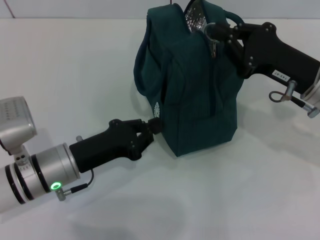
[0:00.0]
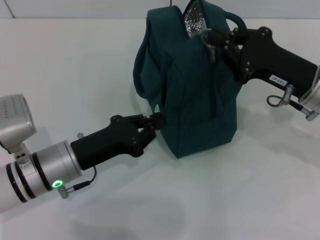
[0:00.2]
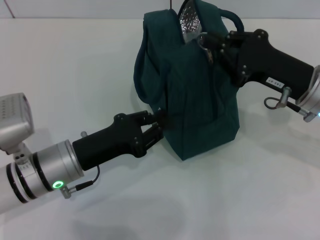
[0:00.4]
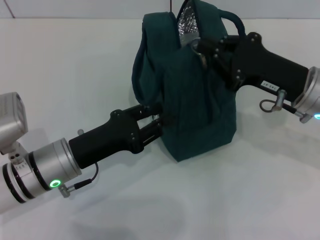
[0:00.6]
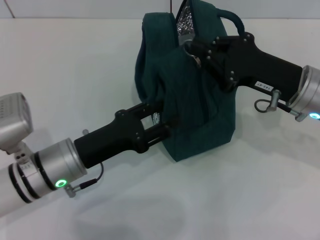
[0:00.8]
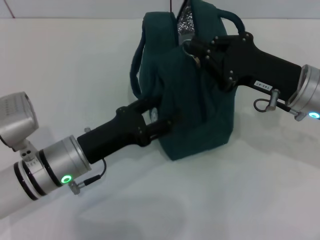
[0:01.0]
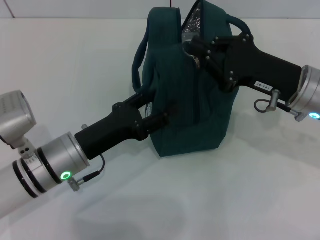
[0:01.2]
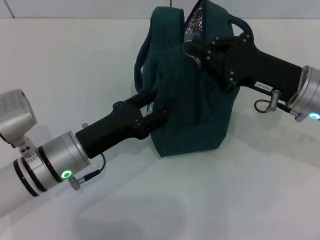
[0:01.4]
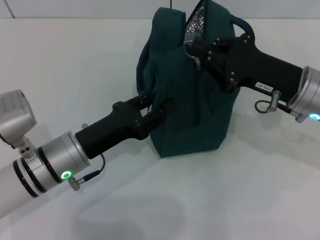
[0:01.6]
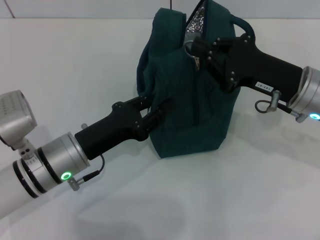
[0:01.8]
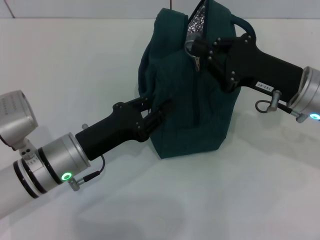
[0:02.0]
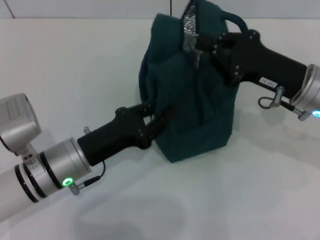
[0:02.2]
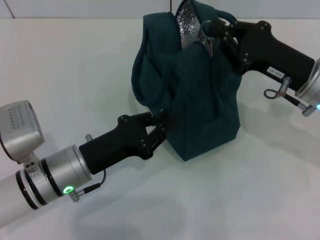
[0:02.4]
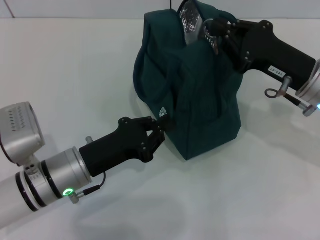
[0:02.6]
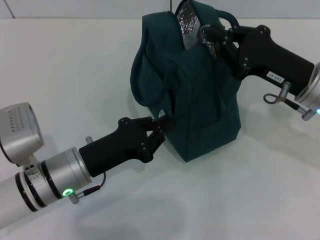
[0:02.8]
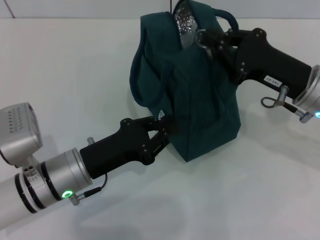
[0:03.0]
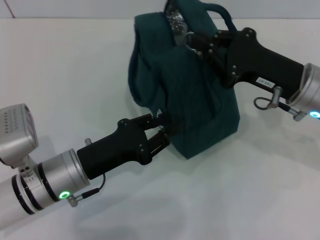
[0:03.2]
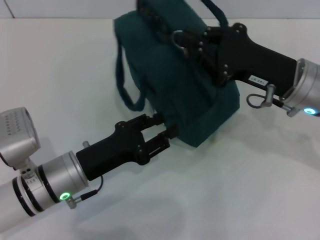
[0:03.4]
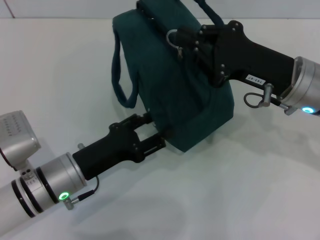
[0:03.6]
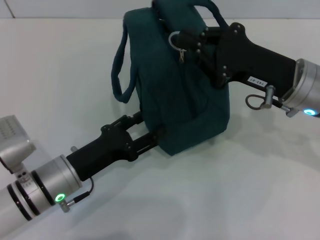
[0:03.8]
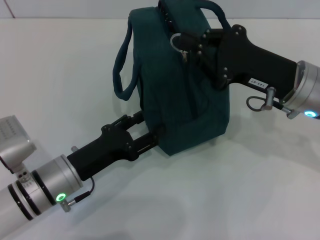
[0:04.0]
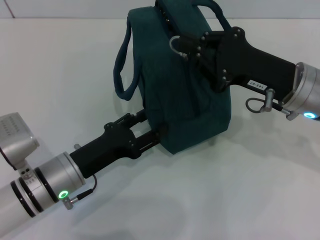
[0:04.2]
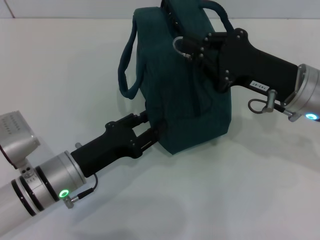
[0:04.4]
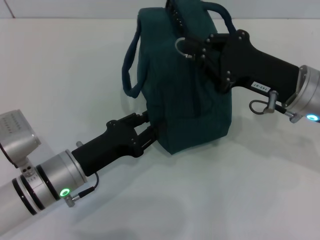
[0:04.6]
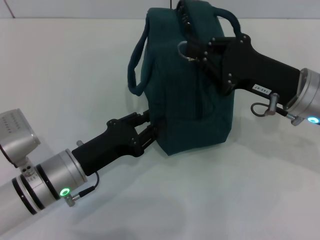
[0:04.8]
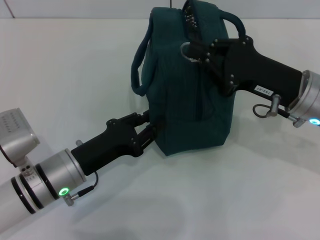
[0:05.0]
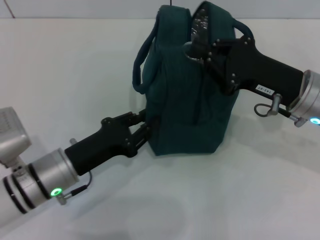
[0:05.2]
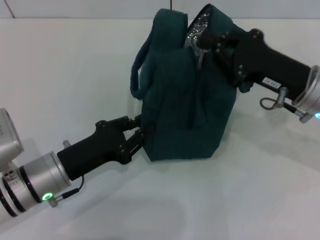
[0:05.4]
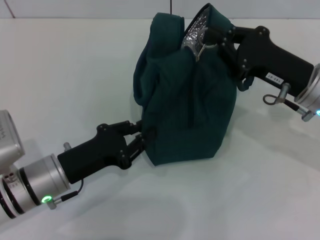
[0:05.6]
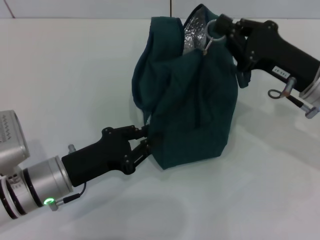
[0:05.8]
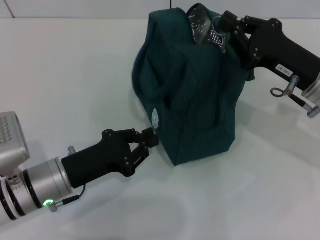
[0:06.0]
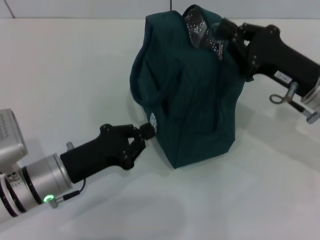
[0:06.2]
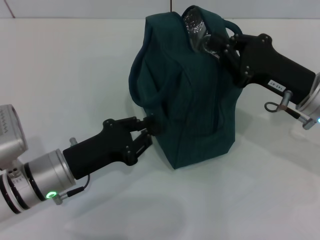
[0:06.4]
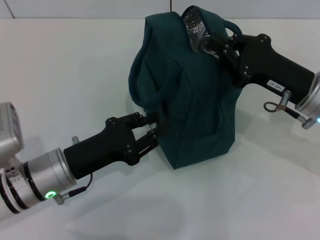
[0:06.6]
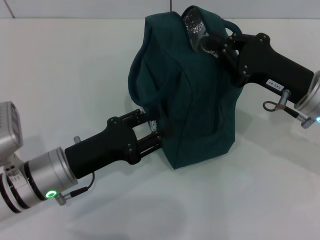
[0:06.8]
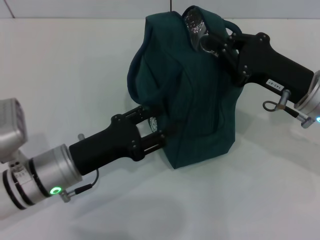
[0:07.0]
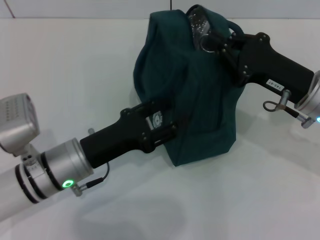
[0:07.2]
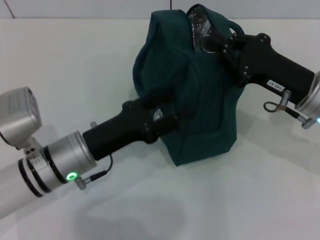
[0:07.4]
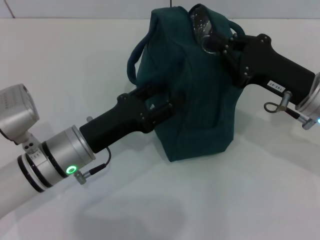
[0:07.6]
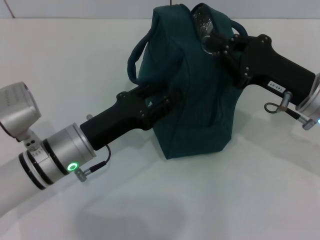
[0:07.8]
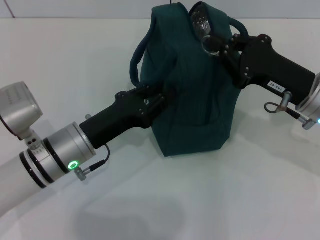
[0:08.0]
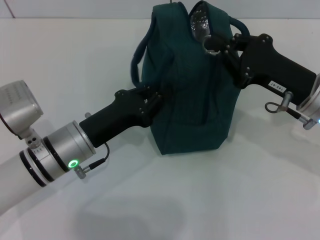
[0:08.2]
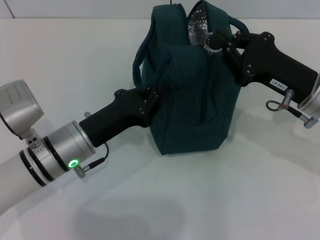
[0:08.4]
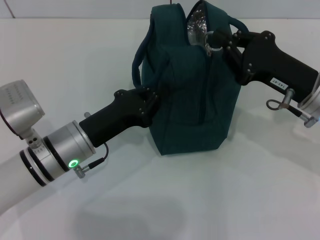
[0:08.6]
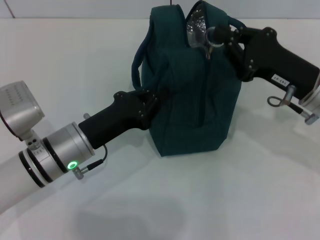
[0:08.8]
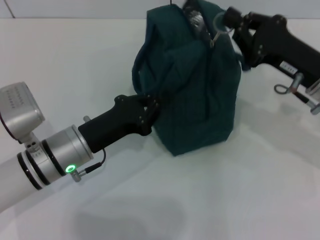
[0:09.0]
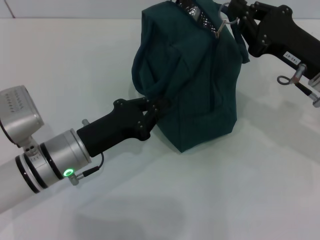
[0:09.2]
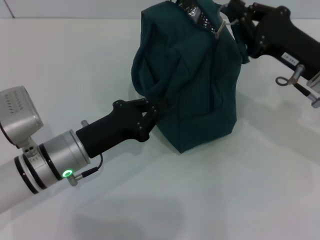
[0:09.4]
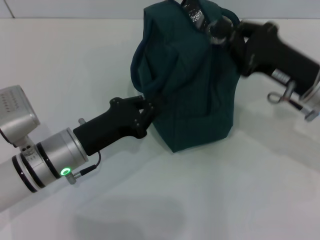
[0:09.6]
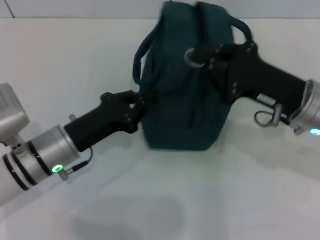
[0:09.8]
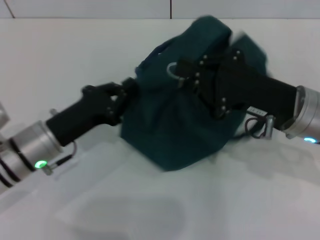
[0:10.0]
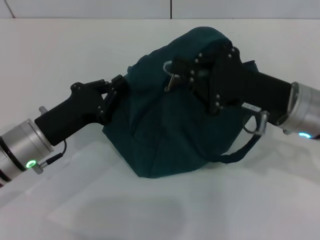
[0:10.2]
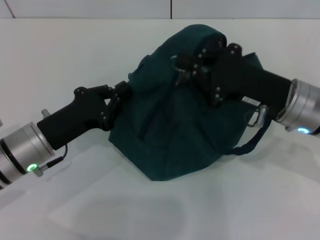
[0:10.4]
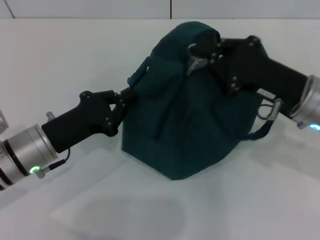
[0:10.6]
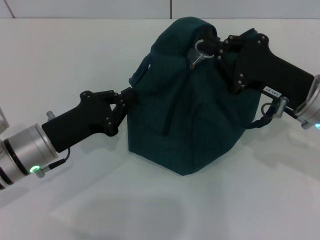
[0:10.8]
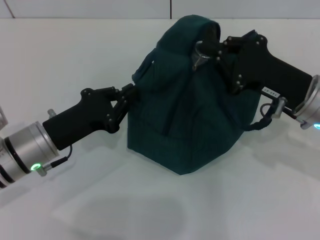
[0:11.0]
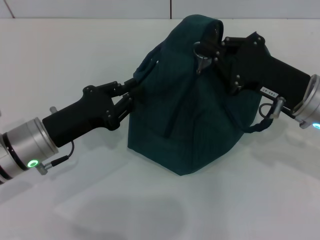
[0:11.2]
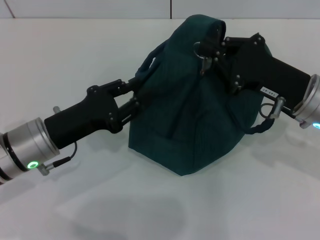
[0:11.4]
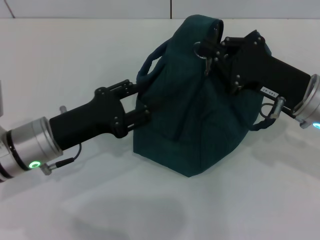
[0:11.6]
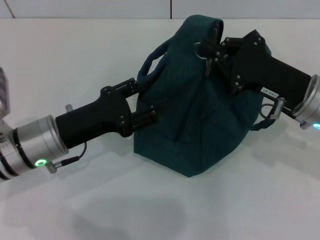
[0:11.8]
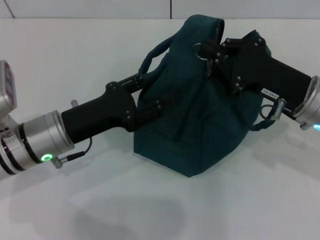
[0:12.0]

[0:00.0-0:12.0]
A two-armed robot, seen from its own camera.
0:00.0 to 0:01.6: The left gripper opens its fingers.
0:01.6 to 0:03.0: The left gripper closes.
0:03.0 to 0:04.4: The left gripper opens up.
0:04.4 to 0:06.0: The left gripper closes up.
0:06.0 to 0:07.6: The left gripper opens its fingers.
0:07.6 to 0:09.0: The left gripper closes.
0:09.0 to 0:10.4: The left gripper travels to the left by roughly 5 cm.
0:10.4 to 0:12.0: The left gripper opens.

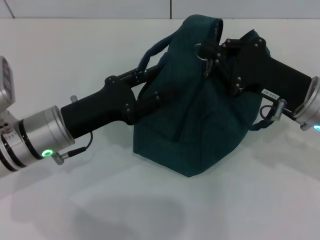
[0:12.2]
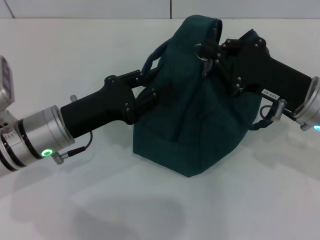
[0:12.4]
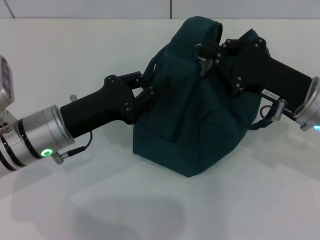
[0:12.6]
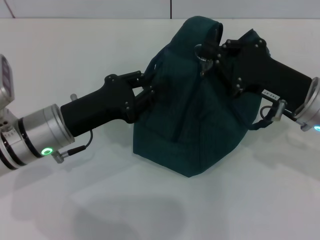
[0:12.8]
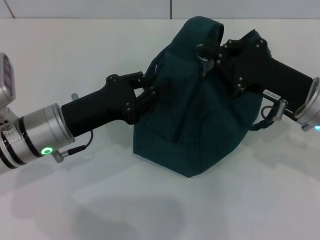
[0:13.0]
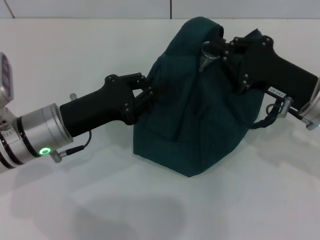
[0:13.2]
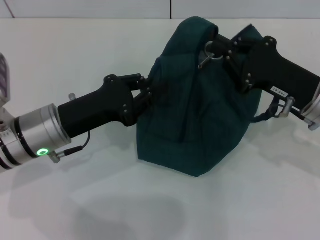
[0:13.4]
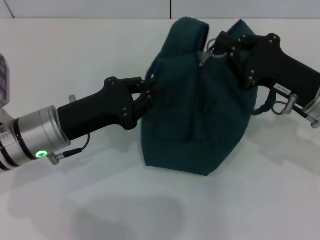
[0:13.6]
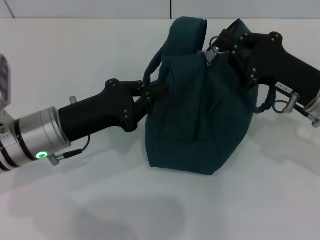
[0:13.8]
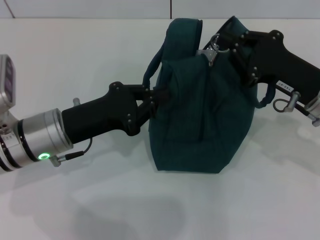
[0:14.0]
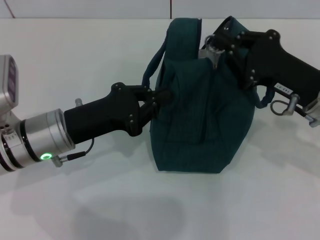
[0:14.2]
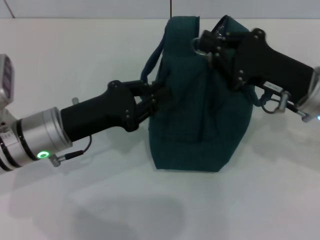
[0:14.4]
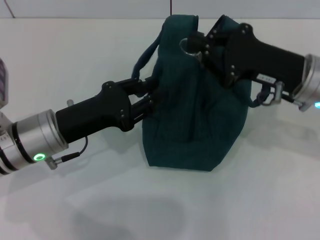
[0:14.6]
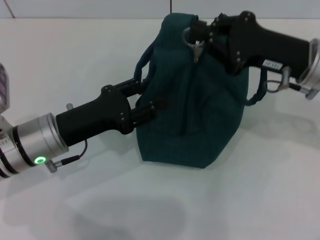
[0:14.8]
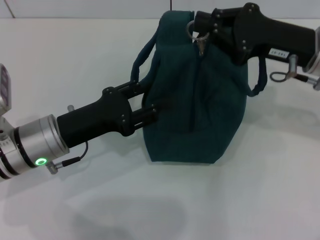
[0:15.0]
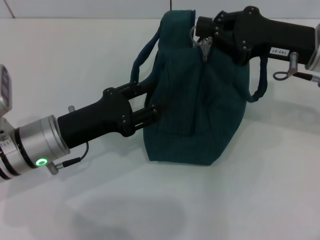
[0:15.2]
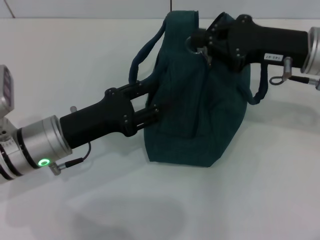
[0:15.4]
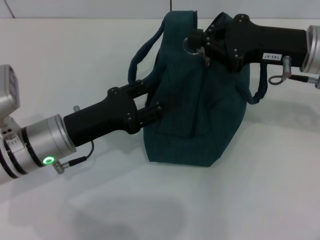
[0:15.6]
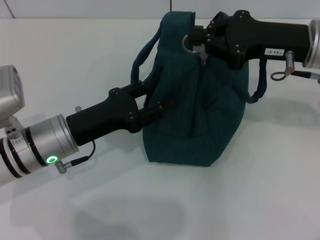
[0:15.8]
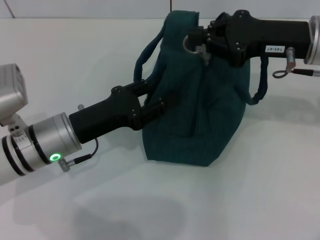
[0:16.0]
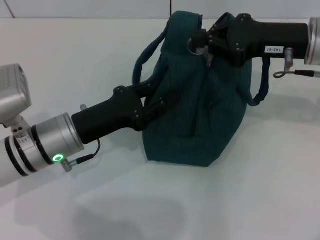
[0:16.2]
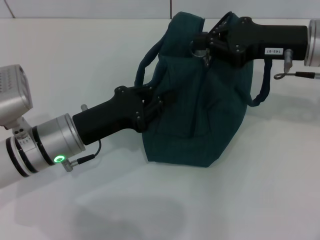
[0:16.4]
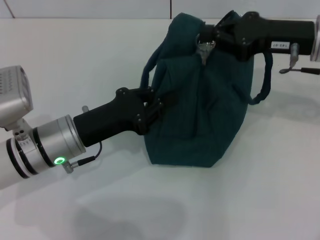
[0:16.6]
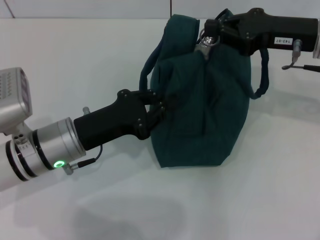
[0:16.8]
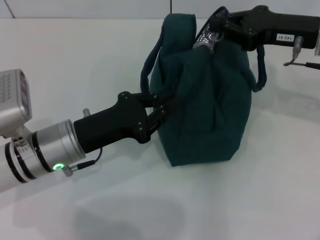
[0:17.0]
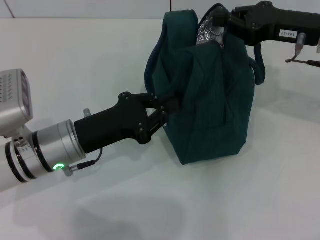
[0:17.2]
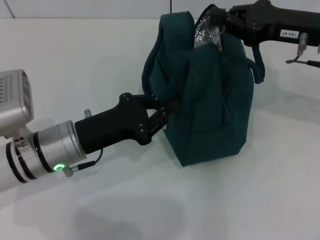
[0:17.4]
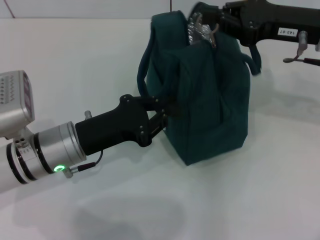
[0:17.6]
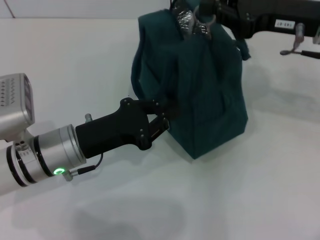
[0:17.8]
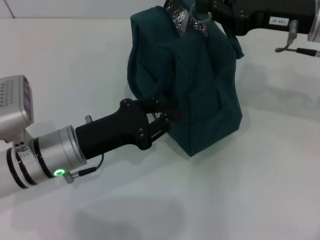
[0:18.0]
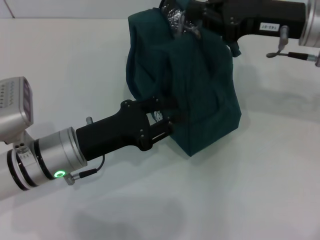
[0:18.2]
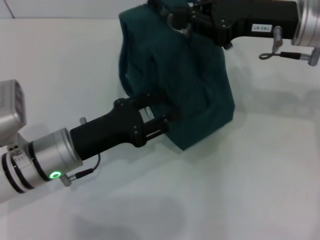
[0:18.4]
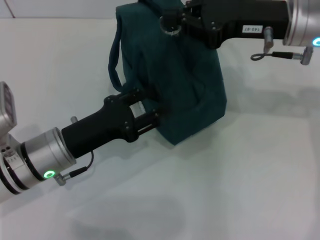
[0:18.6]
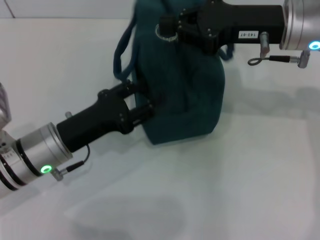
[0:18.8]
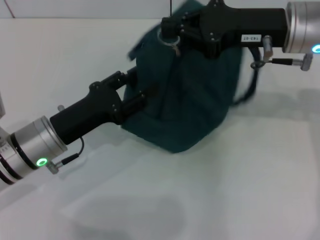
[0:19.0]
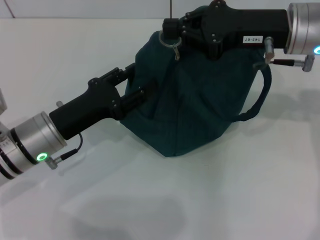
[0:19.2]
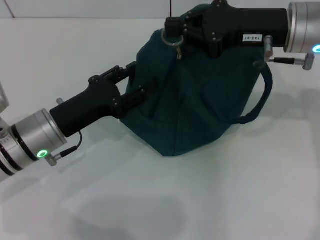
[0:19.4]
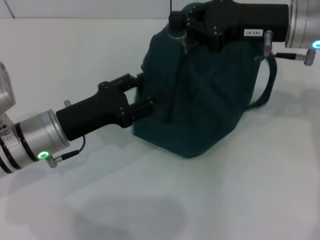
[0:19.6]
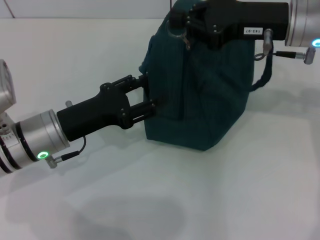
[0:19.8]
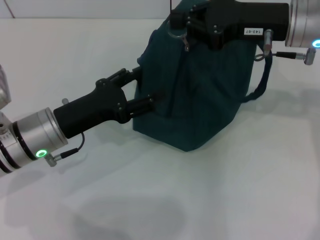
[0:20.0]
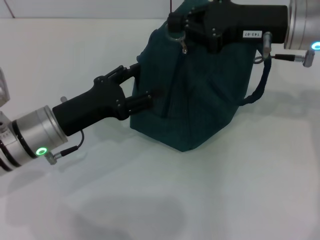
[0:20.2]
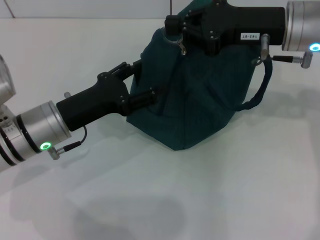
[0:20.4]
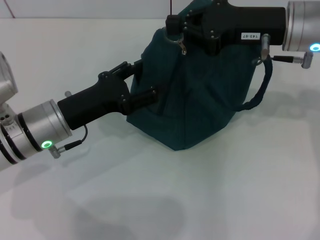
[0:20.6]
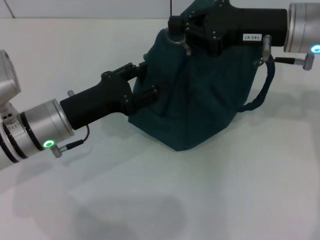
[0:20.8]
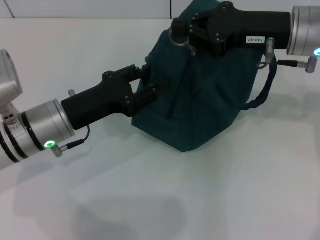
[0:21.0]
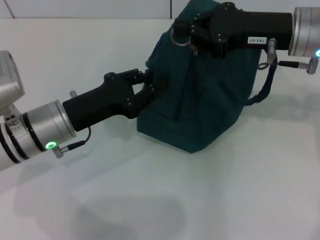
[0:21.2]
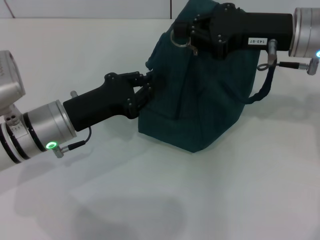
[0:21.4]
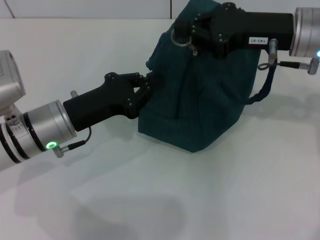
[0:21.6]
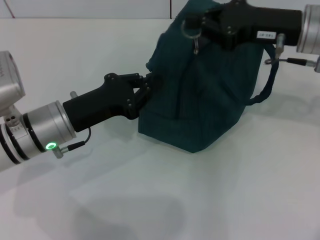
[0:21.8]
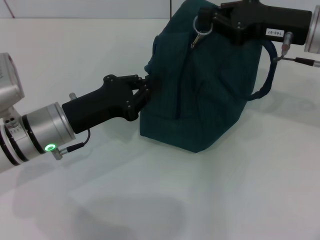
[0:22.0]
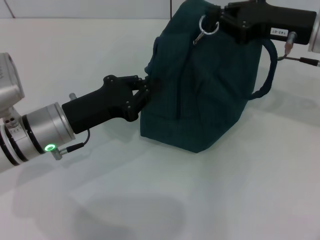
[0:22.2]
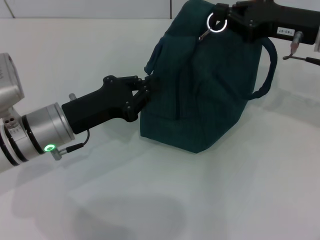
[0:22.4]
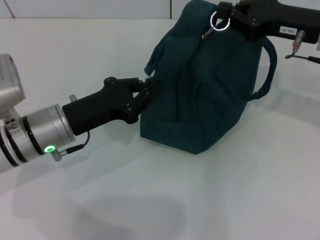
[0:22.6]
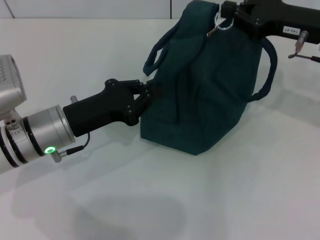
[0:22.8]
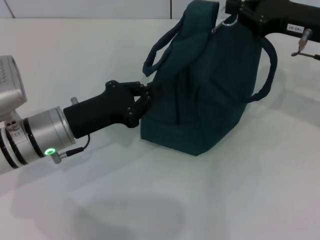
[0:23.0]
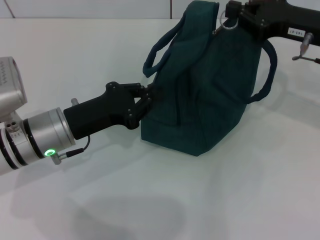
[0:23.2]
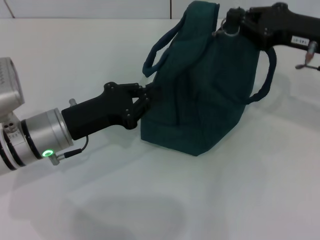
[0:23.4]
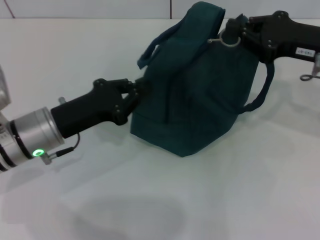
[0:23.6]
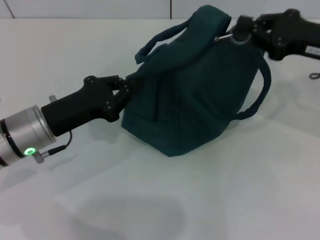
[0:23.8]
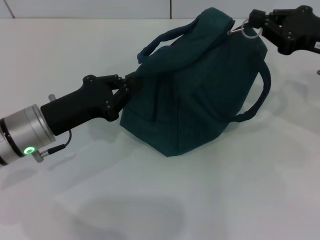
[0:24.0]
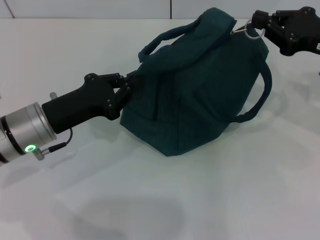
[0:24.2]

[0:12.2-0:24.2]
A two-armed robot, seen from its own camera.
0:12.2 to 0:13.8: The left gripper closes.
0:13.8 to 0:15.2: The right gripper travels upward by roughly 5 cm, while the left gripper opens its fingers.
0:15.2 to 0:16.6: The left gripper closes its fingers.
0:18.2 to 0:19.8: The left gripper opens.
0:19.8 to 0:21.2: The left gripper closes up.
0:21.2 to 0:22.6: The left gripper closes its fingers. The right gripper changes place by about 5 cm.
0:22.6 to 0:24.2: The right gripper moves approximately 5 cm.
